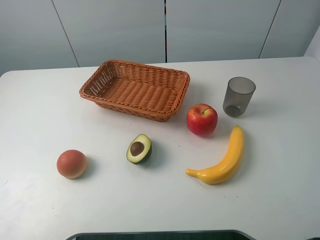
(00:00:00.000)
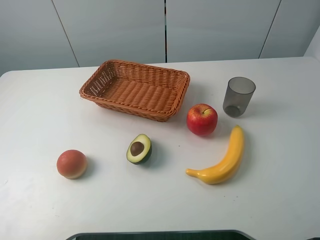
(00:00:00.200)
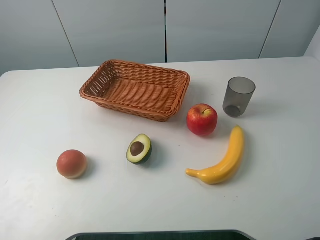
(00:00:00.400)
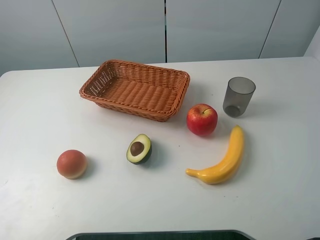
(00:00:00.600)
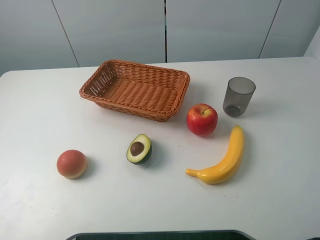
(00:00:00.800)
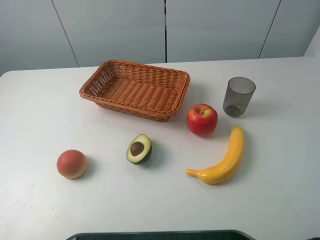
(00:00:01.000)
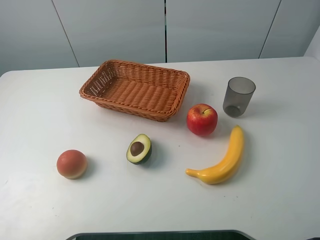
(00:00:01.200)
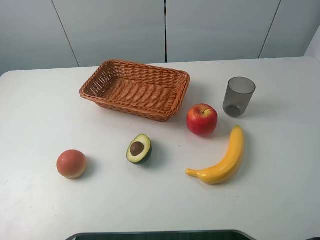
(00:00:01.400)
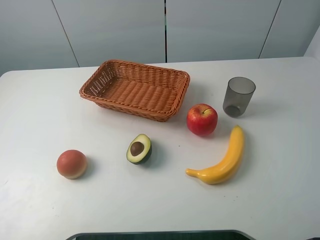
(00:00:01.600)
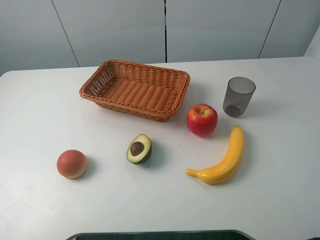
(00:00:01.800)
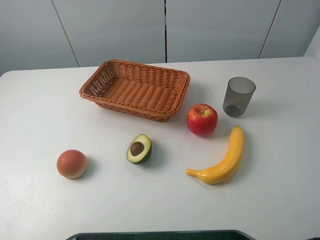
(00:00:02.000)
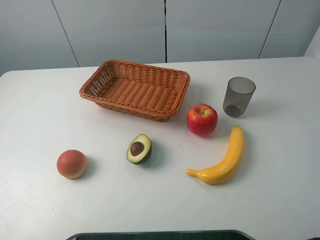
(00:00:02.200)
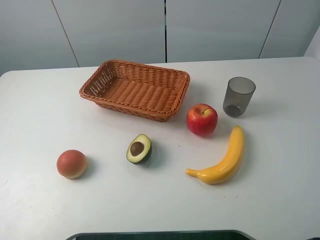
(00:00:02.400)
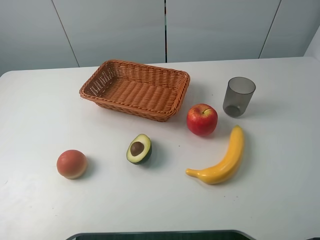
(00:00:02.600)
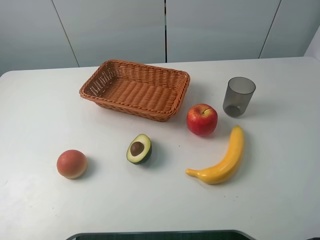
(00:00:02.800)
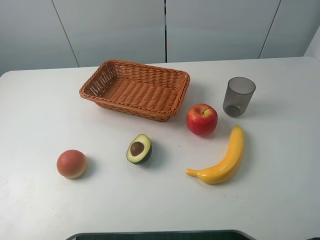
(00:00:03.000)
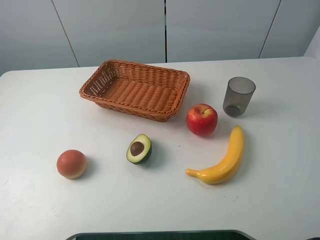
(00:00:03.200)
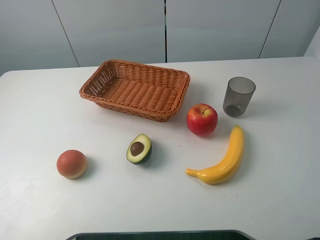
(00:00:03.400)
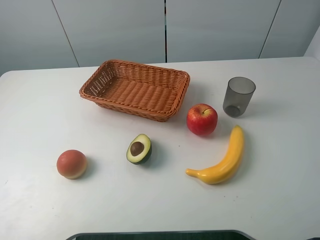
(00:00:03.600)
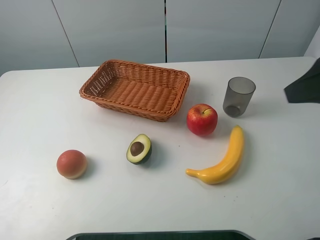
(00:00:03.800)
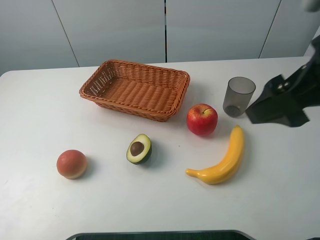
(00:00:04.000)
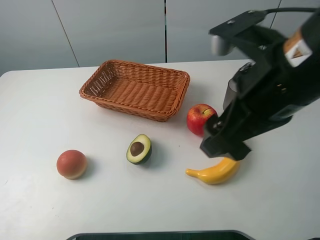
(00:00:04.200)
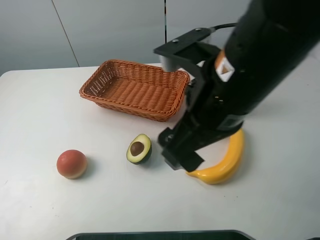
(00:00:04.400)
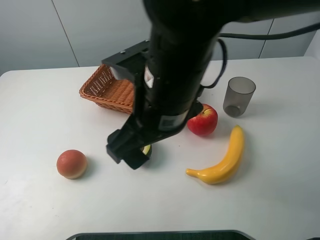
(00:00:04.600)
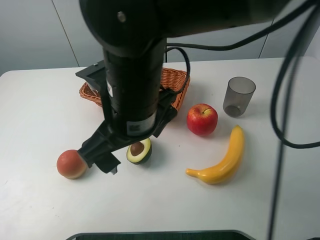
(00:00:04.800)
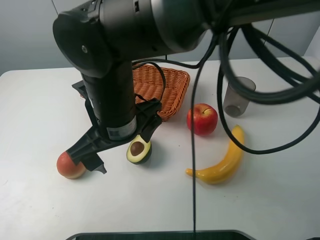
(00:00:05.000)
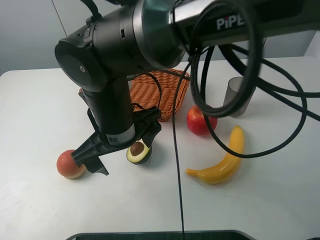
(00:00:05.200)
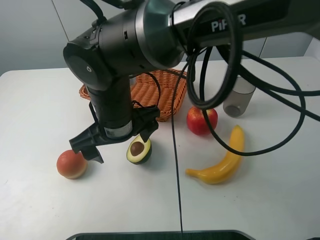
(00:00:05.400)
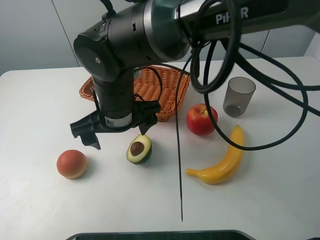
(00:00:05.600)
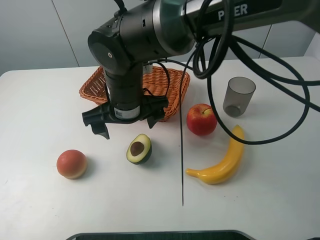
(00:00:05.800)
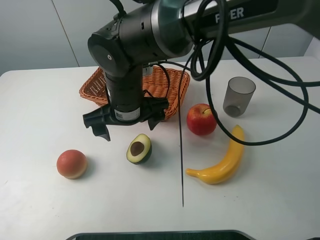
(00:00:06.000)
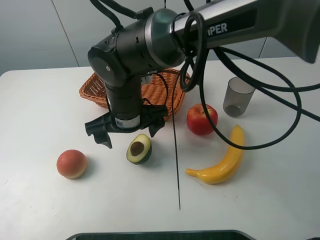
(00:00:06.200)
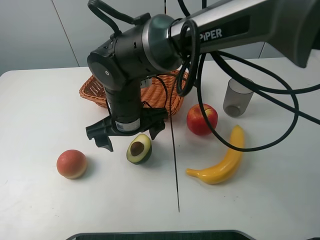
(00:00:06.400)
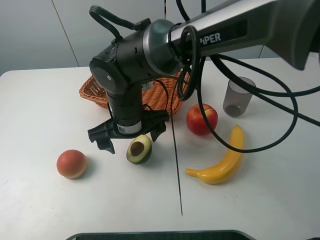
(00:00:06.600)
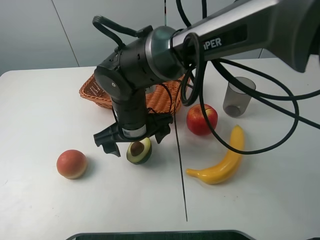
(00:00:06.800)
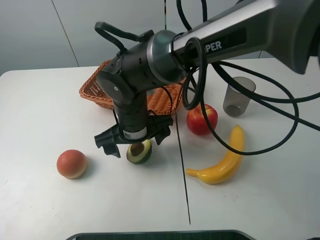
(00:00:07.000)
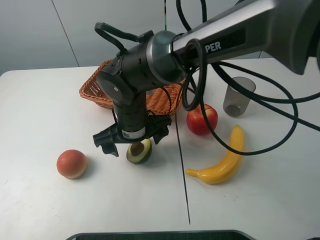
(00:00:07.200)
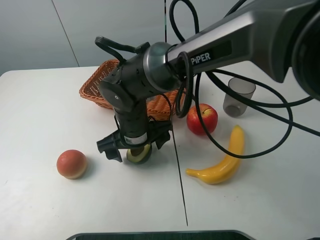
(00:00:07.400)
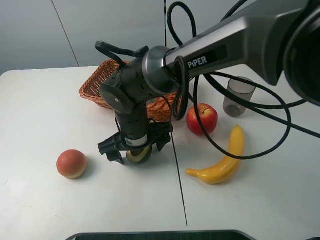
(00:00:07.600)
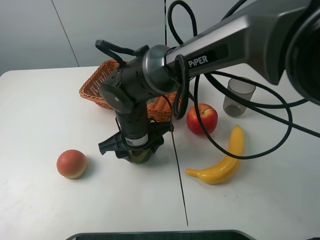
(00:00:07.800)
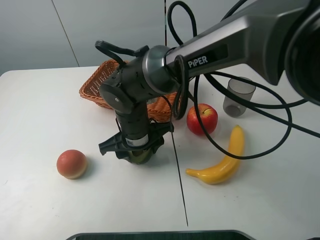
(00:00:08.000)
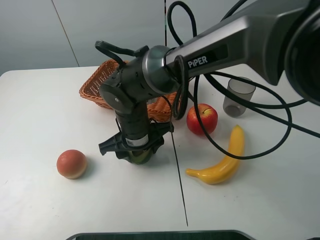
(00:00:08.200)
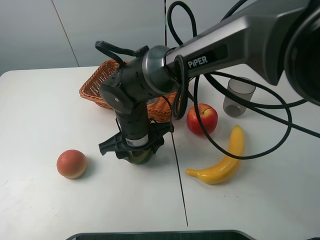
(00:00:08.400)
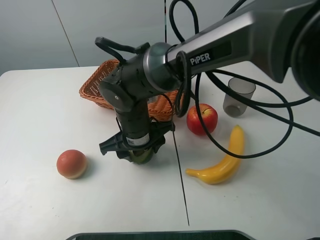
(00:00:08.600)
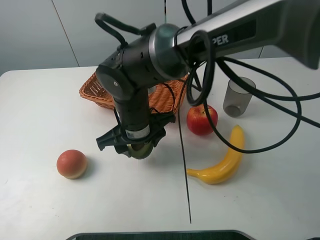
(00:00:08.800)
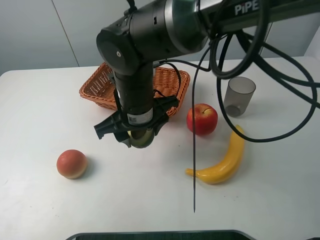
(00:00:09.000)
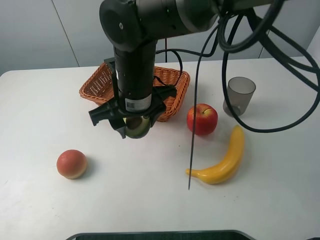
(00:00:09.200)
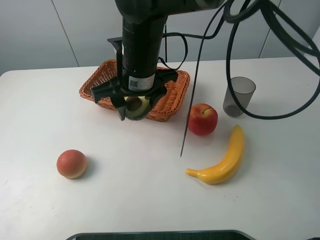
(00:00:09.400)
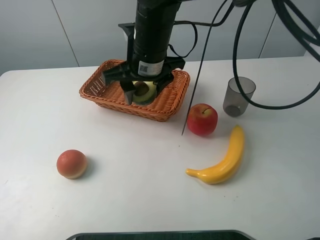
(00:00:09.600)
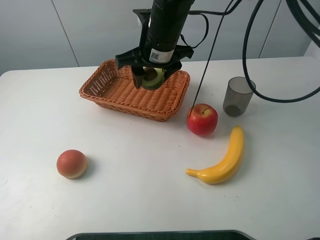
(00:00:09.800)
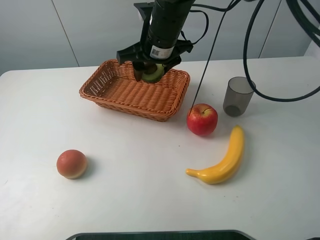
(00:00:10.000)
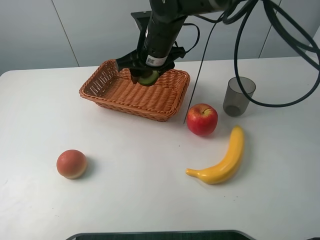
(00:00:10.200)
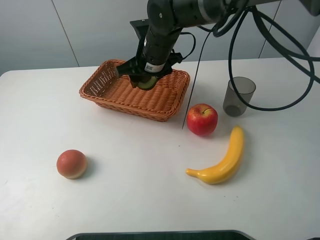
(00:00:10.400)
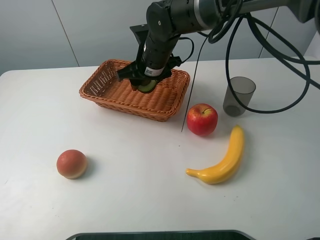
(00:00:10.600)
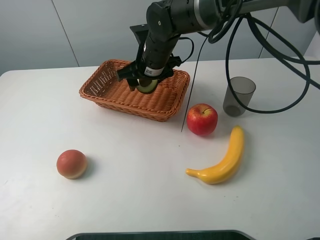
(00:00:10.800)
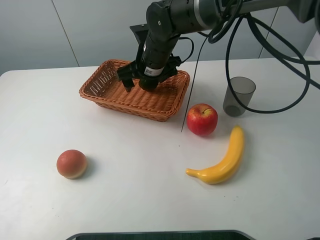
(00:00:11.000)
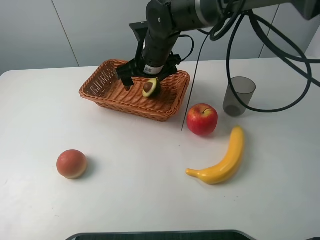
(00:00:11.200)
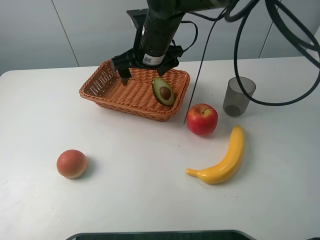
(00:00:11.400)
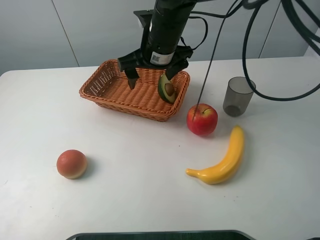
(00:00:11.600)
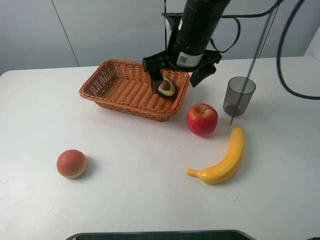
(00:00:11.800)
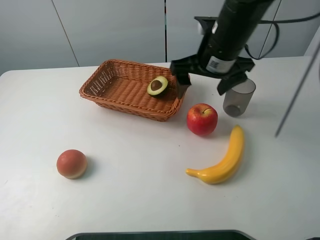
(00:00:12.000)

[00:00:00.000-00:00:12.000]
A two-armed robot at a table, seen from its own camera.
Task of the whole recording: randomly pick up an item from the table and put it in the basket.
Step, 00:00:00.000 to 00:00:08.000: Grasp the avocado with the right gripper.
Step, 00:00:08.200 to 00:00:11.600: Place the avocado into the basket with the right gripper.
00:00:00.000 to 00:00:03.000: The two grippers keep their place.
00:00:03.000 to 00:00:04.400: The right gripper goes approximately 25 cm to the left and forward.
00:00:04.400 to 00:00:06.000: The right gripper goes roughly 20 cm to the left, downward and forward.
00:00:06.000 to 00:00:07.600: The right gripper travels downward by roughly 5 cm.
00:00:07.600 to 00:00:09.000: The right gripper moves upward, approximately 5 cm, and closes its fingers.
00:00:09.000 to 00:00:10.400: The right gripper is displaced forward by approximately 15 cm.
00:00:10.400 to 00:00:12.000: The right gripper shifts approximately 15 cm to the right, backward and upward, and opens up.

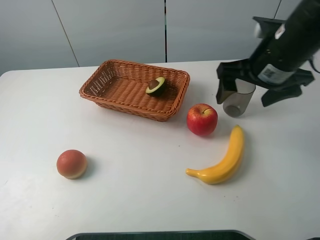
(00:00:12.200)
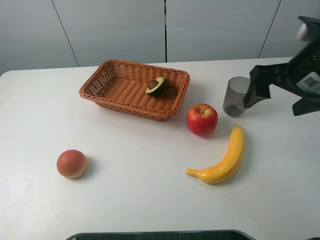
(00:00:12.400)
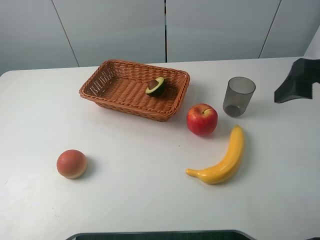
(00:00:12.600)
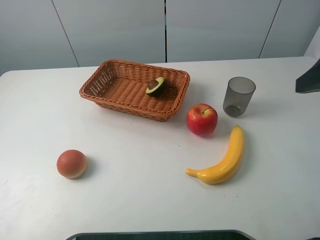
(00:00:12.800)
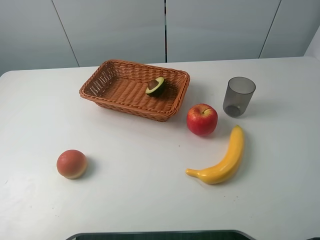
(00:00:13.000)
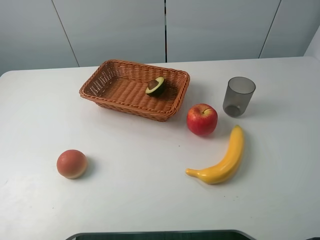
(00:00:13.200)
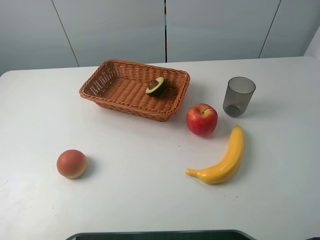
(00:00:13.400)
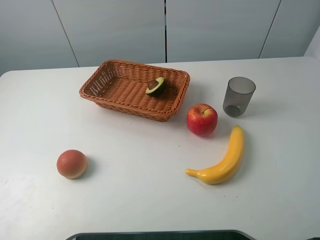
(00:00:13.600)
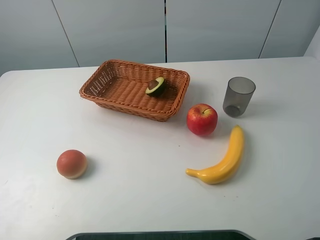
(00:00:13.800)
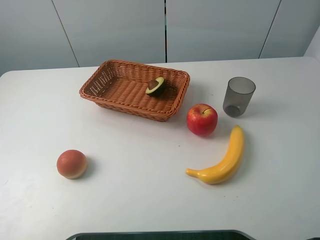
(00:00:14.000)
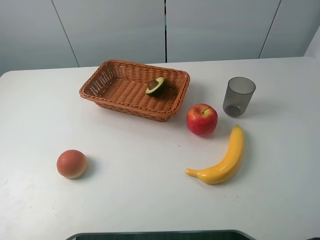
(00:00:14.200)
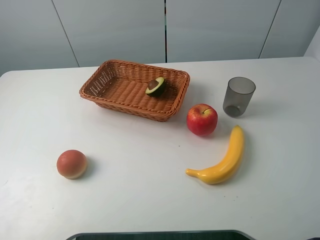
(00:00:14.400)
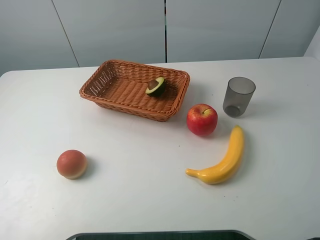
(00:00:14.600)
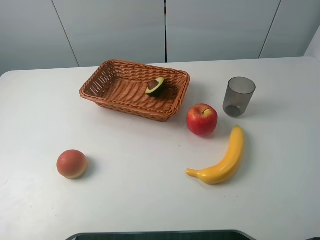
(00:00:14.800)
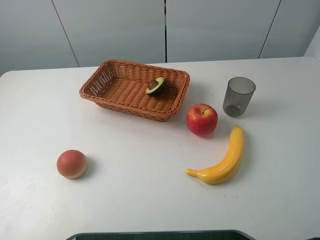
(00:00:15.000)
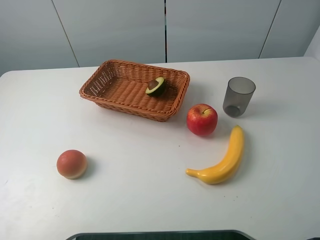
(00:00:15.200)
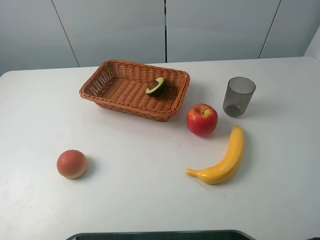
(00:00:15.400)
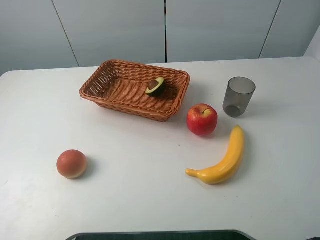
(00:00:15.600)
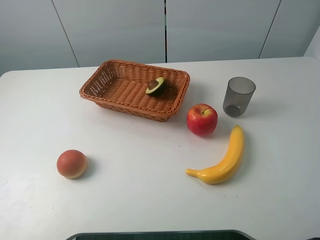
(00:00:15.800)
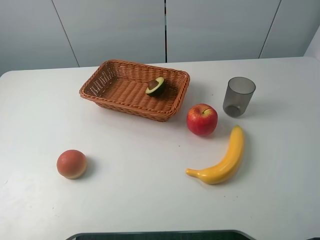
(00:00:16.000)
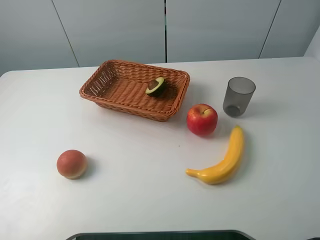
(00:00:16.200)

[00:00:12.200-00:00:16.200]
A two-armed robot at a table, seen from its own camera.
Task of the whole recording: randomly pick up an item from the table and put it in the basket.
00:00:12.200 to 00:00:13.600: The right gripper moves backward and to the right, some 25 cm.
00:00:14.800 to 00:00:16.200: The two grippers keep their place.
